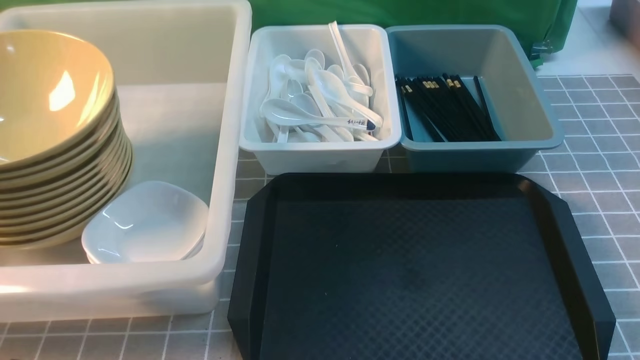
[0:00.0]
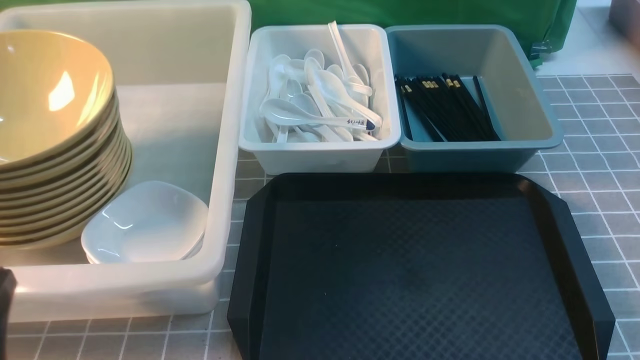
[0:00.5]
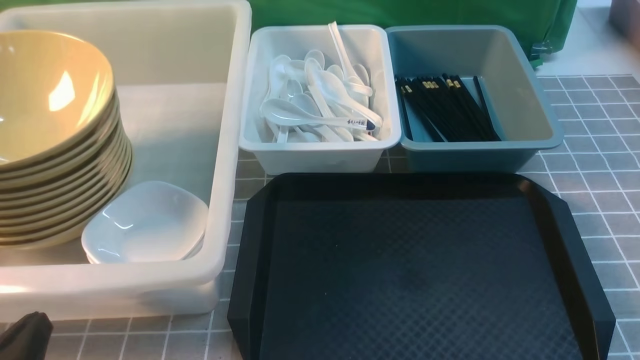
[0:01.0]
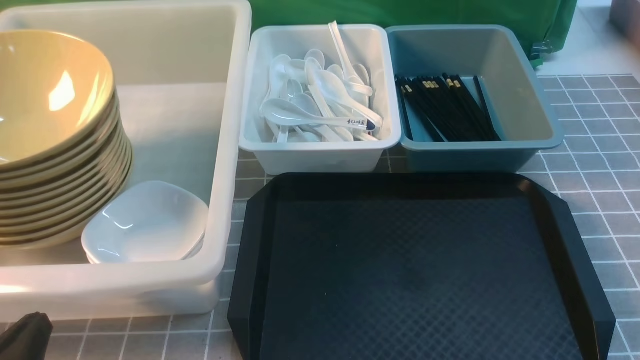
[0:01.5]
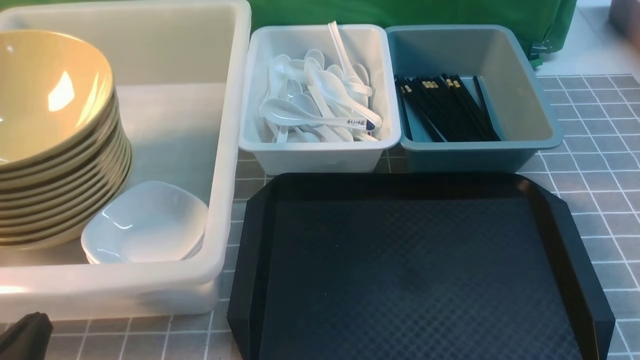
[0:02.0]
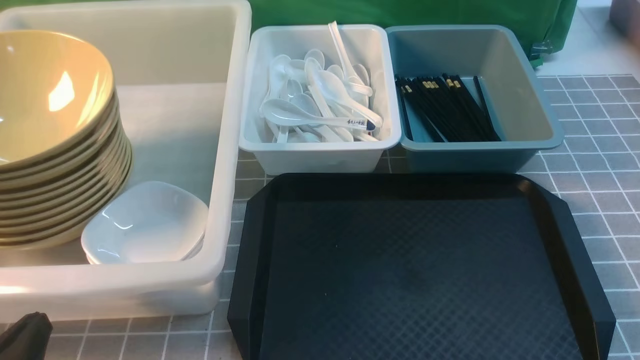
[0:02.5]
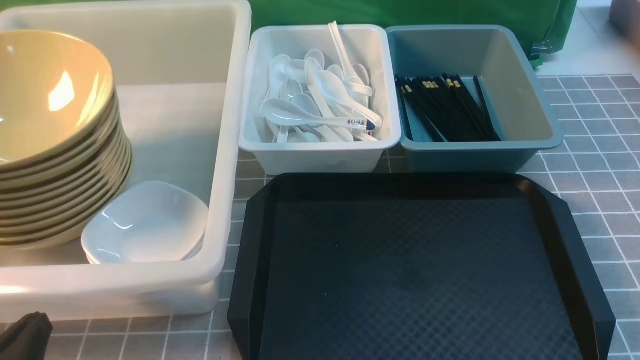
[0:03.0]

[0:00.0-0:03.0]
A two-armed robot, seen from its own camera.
Task of the whole recording: on grey table put chopsticks spoon bowls plates into blue grey white boxes.
0:00.0 to 0:01.5: The left gripper is displaced downward by some 10 cm.
0:01.5 to 0:03.0: Both grippers stay put.

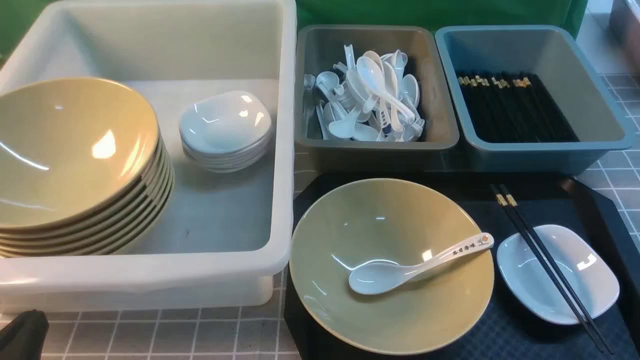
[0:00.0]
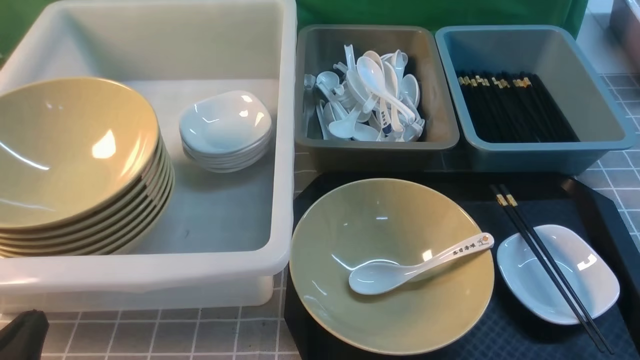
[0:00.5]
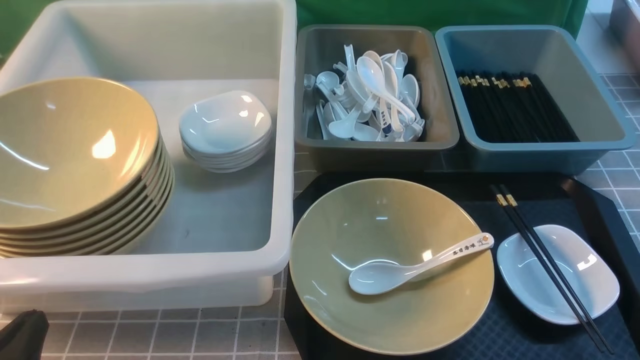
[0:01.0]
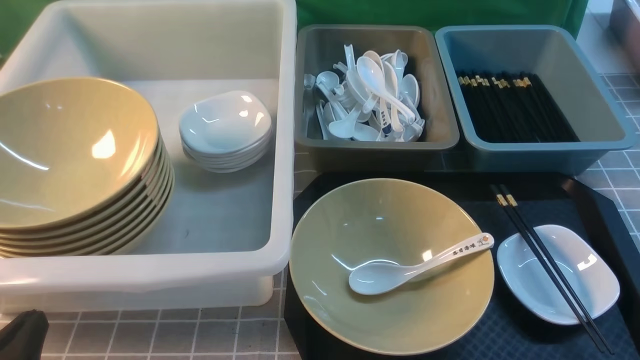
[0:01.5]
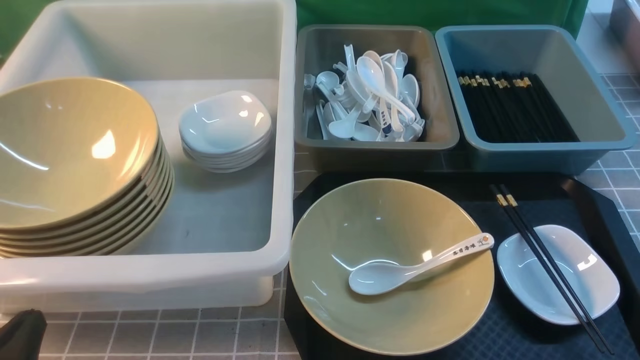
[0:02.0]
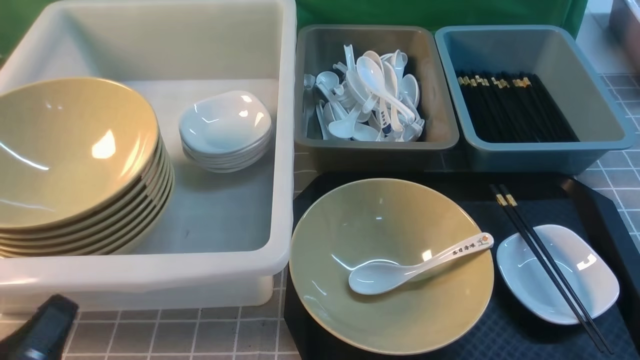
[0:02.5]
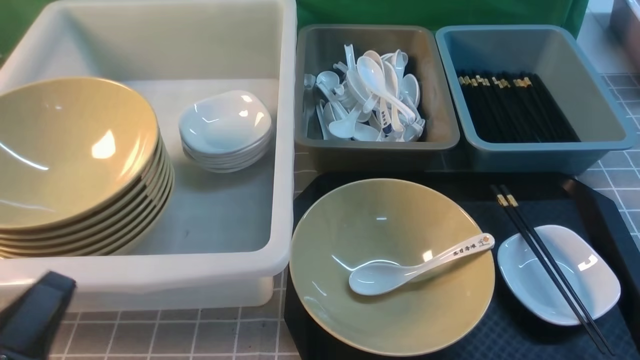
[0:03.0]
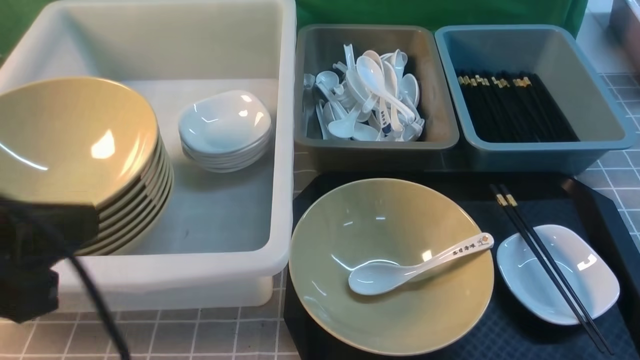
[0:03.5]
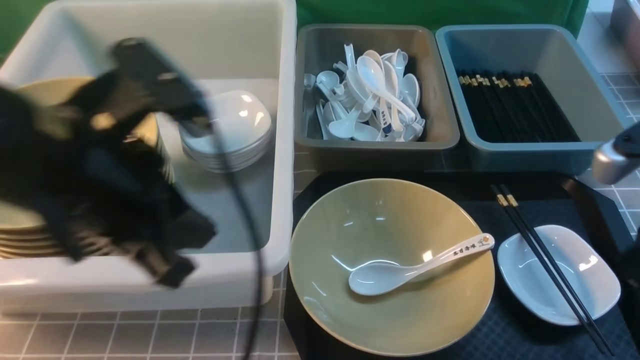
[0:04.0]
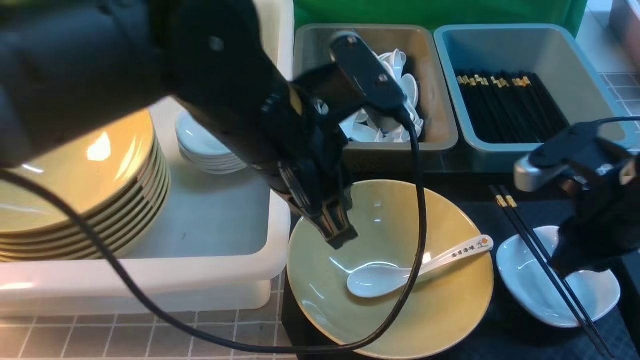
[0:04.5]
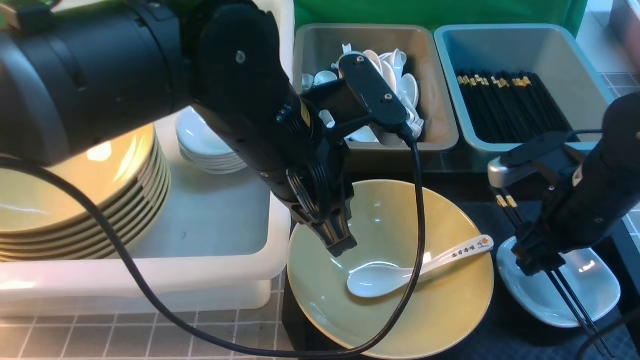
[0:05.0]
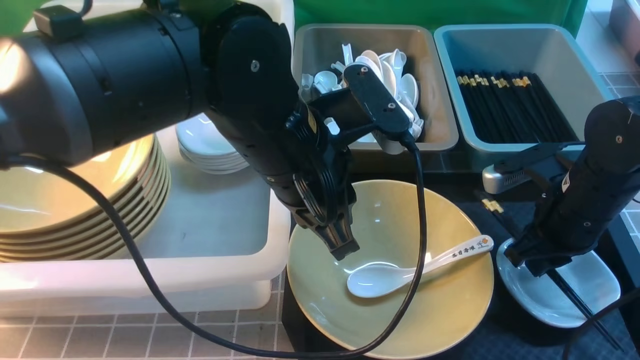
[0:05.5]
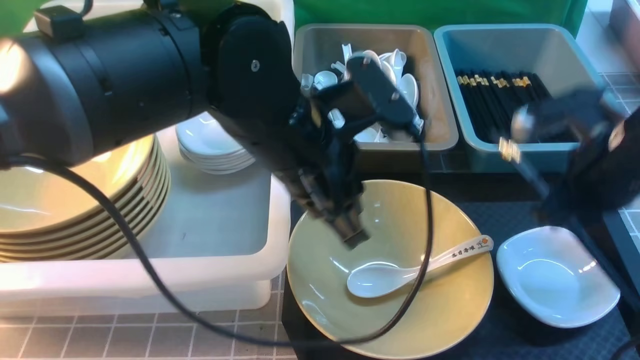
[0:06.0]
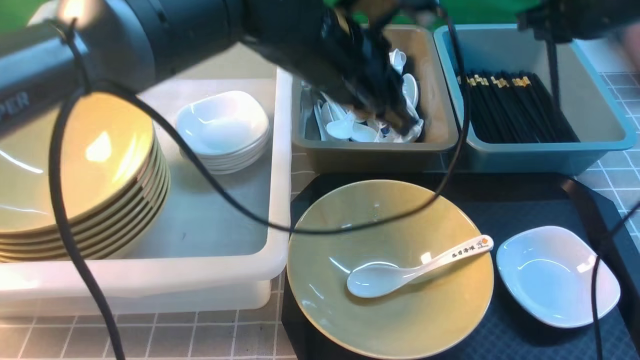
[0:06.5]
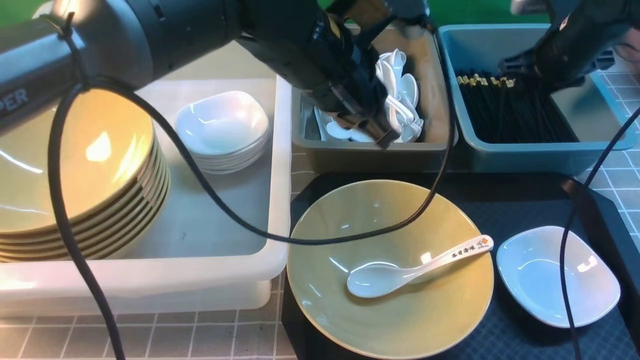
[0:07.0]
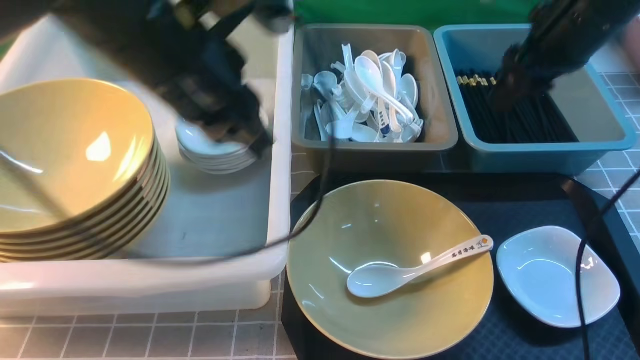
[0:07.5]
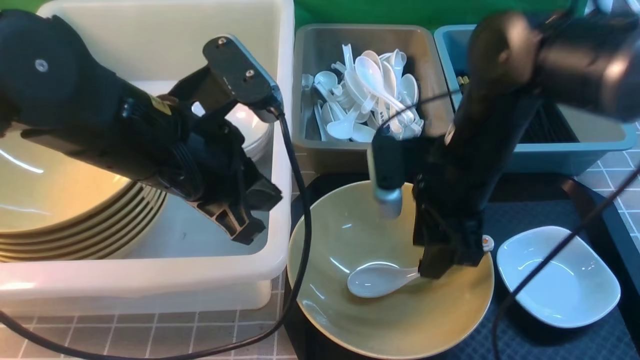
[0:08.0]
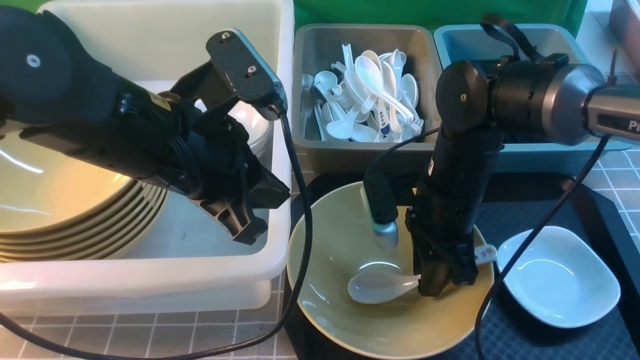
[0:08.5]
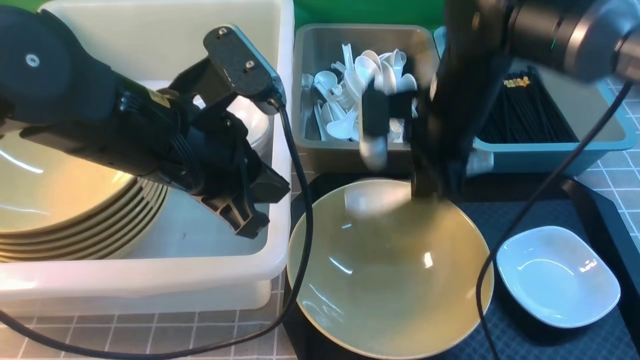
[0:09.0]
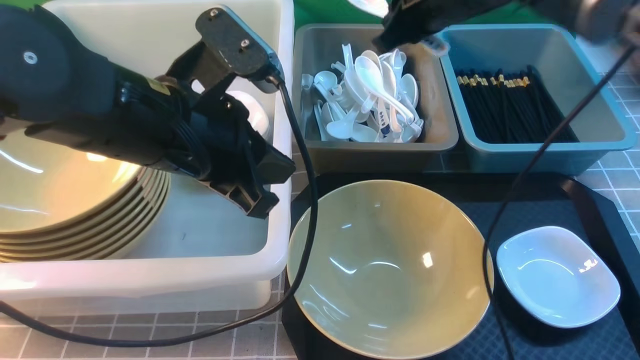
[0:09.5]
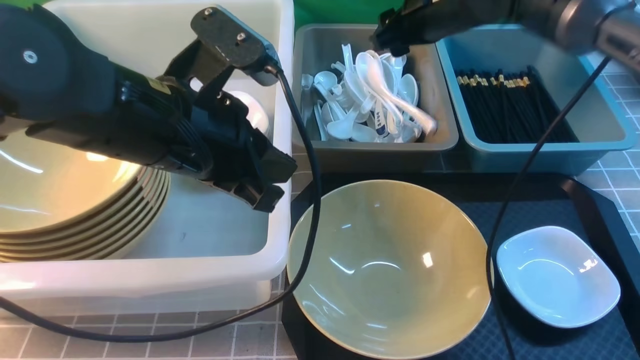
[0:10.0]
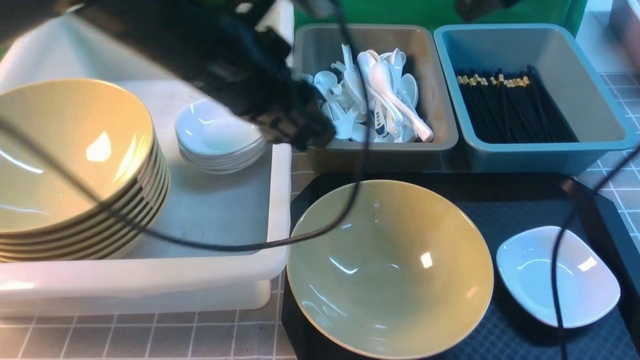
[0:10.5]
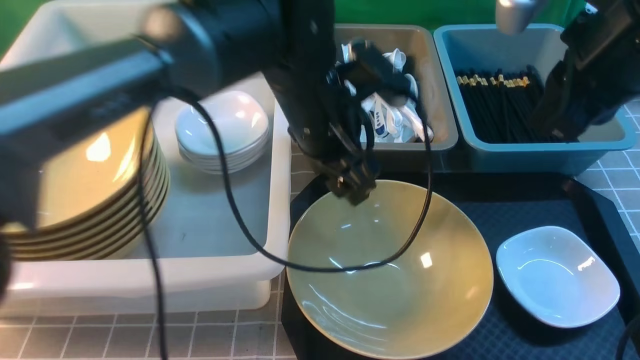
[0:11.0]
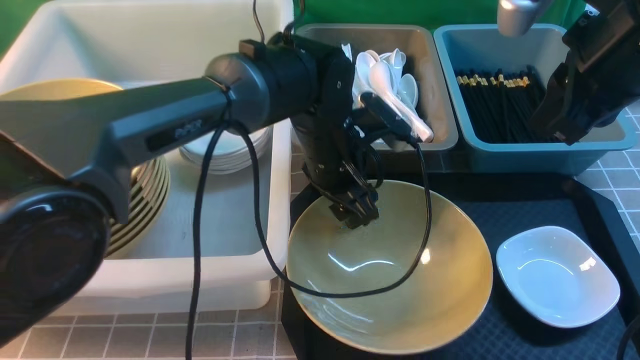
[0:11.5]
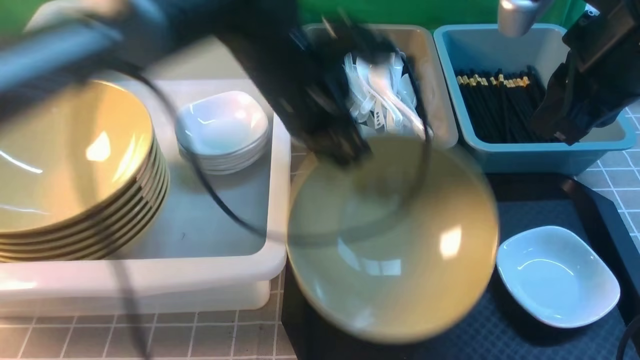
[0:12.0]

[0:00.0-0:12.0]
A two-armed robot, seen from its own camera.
Task of the whole recording: on grey table put chopsticks spoon bowls plates into blue grey white boxes.
Step, 0:00.0 to 0:06.0: use the right arm to grab the chopsticks.
Step, 0:06.5 to 0:07.0: use the right arm to put the chopsticks into the small storage box on the right.
Step, 0:07.5 to 0:08.5: use the right arm to grab the soup spoon in the middle.
Step, 0:09.5 to 0:10.0: use the right arm to put the soup spoon into the small storage box in the middle.
0:02.0 to 0:04.0: The right gripper shifts approximately 20 cm forward and upward, and closes up, while the left gripper is displaced upward, forward and to the right by approximately 25 cm.
0:04.0 to 0:06.0: The right gripper shifts about 15 cm forward and downward, and opens and closes again, while the left gripper heads to the right and forward, covering roughly 15 cm.
0:06.0 to 0:08.0: Both grippers travel together to the left, roughly 10 cm. The right gripper travels forward and back again, about 20 cm each way, and opens its fingers.
0:08.0 to 0:10.0: The right gripper travels forward by about 15 cm, and closes, then opens again.
0:10.0 to 0:12.0: The left gripper heads forward and to the right, covering approximately 10 cm, moves approximately 10 cm downward and comes back, and opens and closes again. The right gripper moves backward, about 20 cm, and closes its fingers.

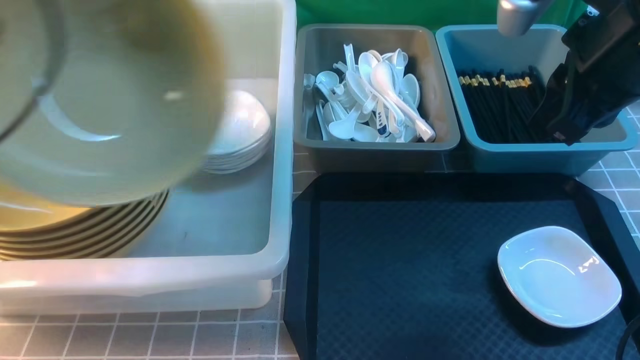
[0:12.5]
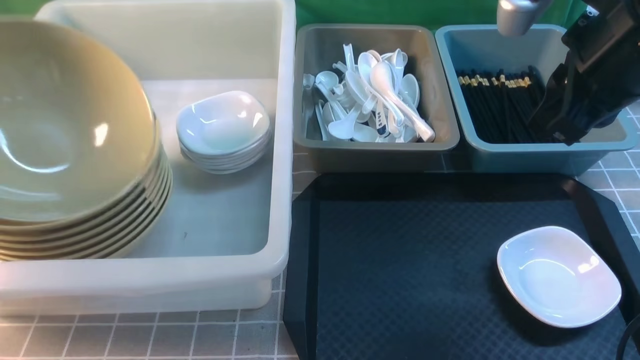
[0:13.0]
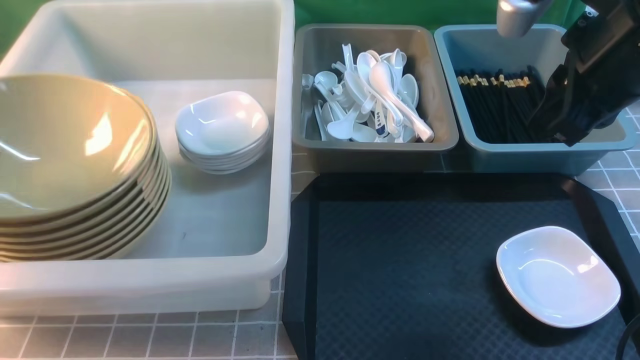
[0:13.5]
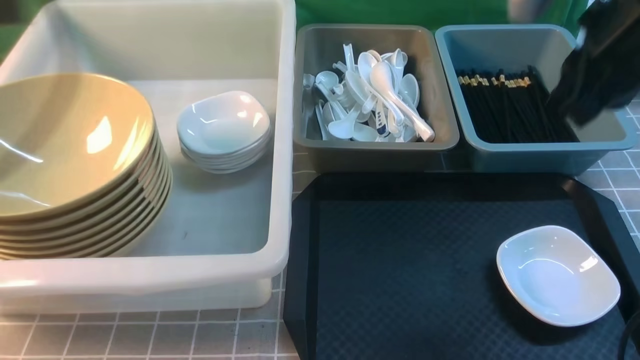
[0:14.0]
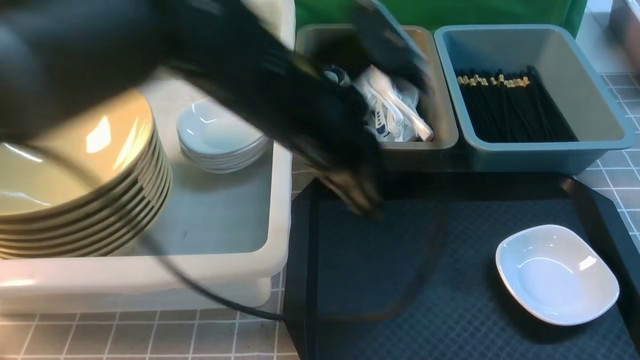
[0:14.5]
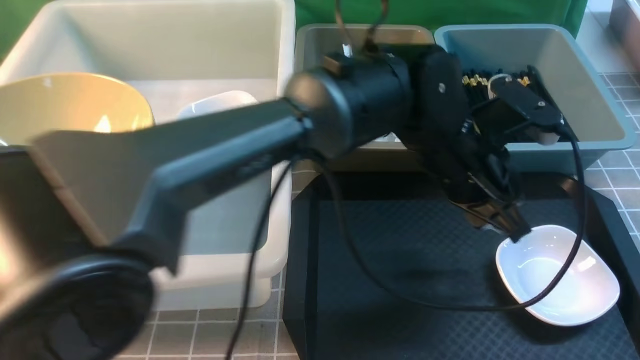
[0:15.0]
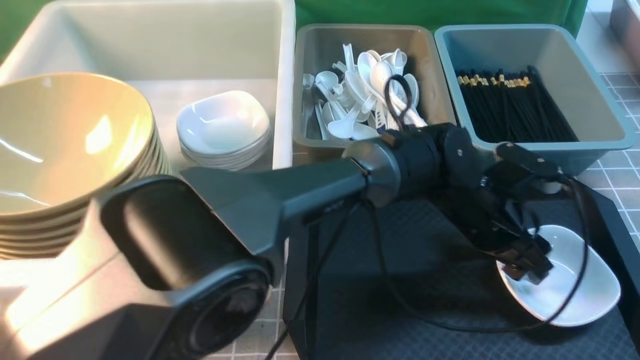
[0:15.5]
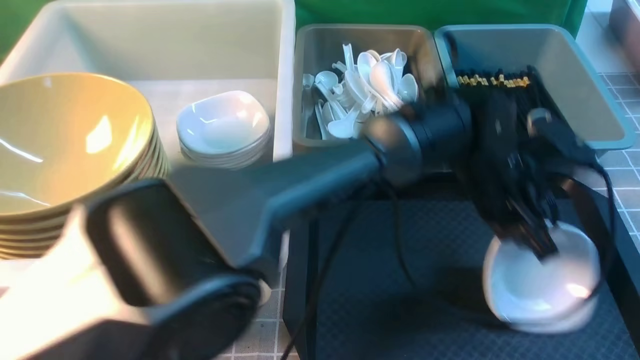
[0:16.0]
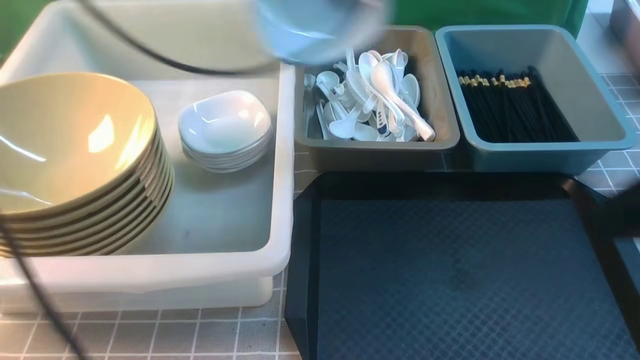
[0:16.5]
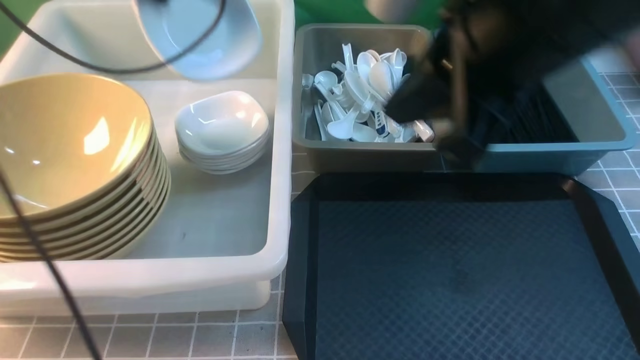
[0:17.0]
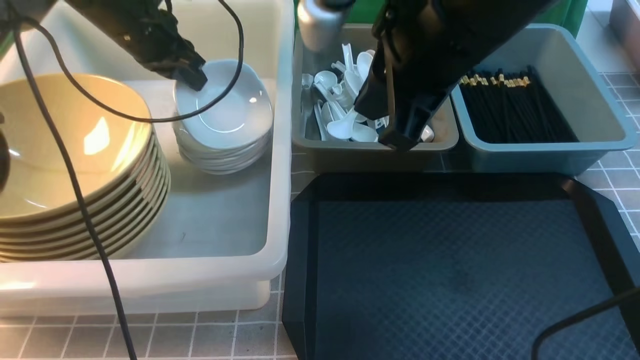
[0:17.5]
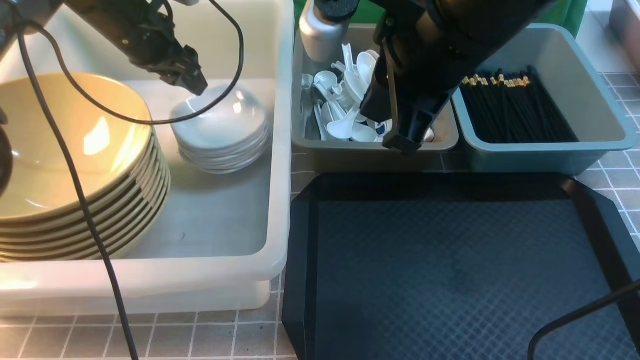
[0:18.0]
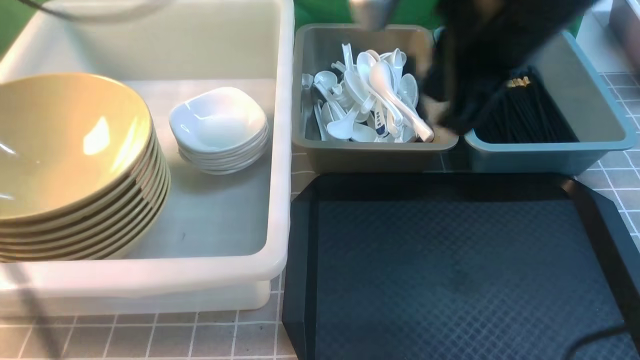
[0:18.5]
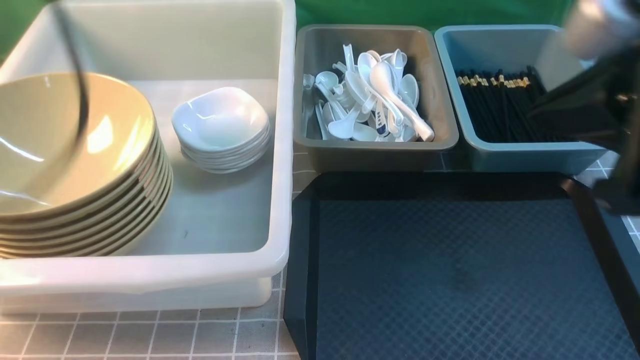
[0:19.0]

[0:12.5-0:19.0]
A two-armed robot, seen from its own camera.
Task of the whole recording: on grey table put chopsticks spoon bowls plates into blue grey white boxes.
Step, 0:12.5 to 0:13.5: use the left arm to put the noodle bowl into the large storage box on the left.
Step, 0:14.0 to 0:16.0: use the left arm to grab the plate.
Step, 0:16.5 to 0:18.0: use the left arm to put the chopsticks into the small storage box on the right.
0:12.5 to 0:14.5: The left gripper moves to the right, roughly 20 cm, and opens and closes again. The right gripper travels backward by roughly 5 cm.
0:14.5 to 0:17.0: The right gripper shifts about 10 cm to the left, while the left gripper heads to the left and forward, covering some 20 cm, and opens, then closes once more.
0:17.0 to 0:19.0: The right gripper travels to the right by some 5 cm, while the left gripper shifts some 20 cm backward, and opens and closes again.
